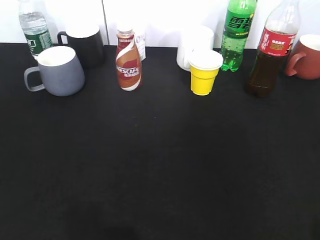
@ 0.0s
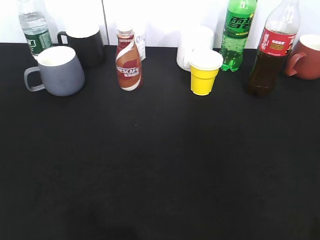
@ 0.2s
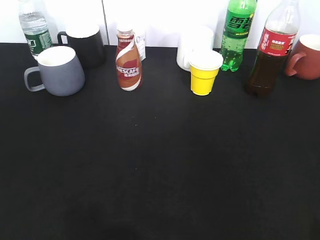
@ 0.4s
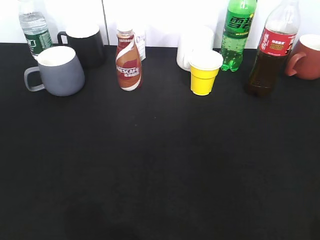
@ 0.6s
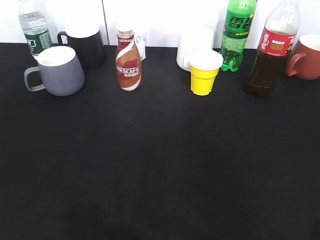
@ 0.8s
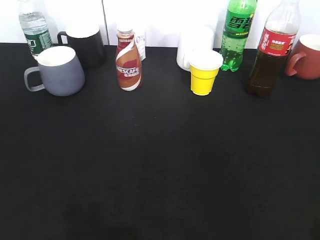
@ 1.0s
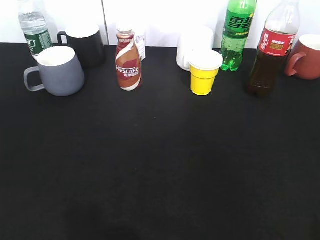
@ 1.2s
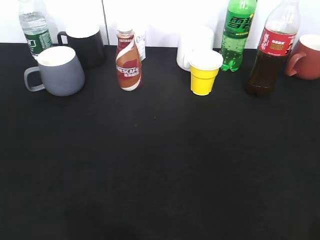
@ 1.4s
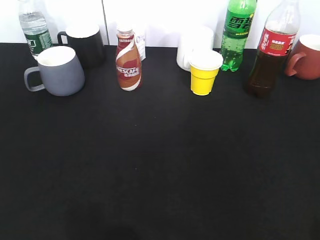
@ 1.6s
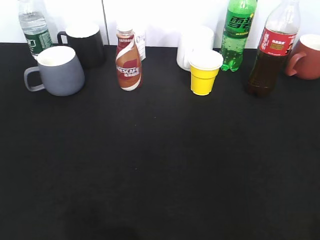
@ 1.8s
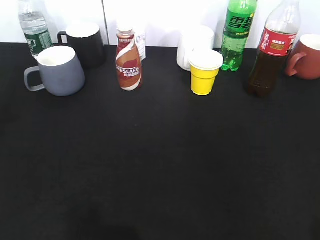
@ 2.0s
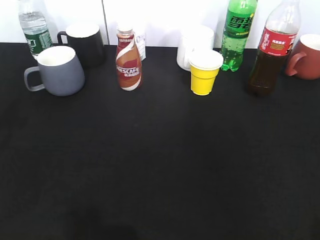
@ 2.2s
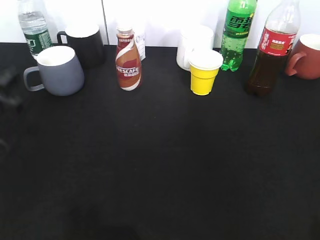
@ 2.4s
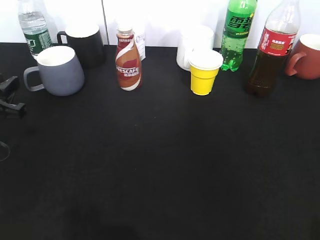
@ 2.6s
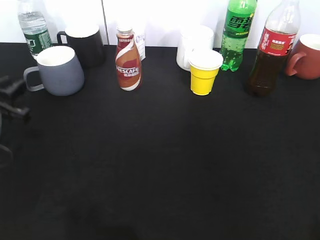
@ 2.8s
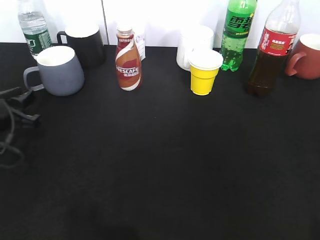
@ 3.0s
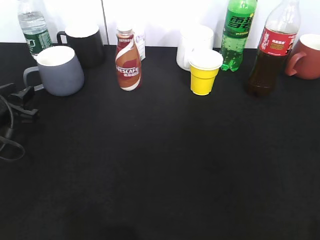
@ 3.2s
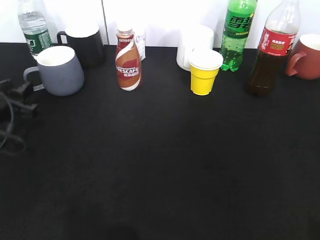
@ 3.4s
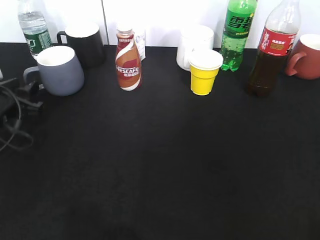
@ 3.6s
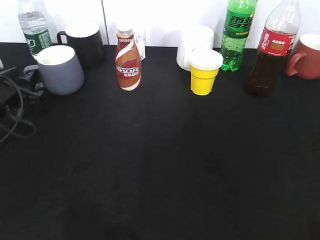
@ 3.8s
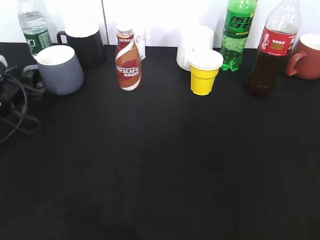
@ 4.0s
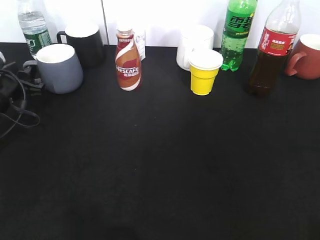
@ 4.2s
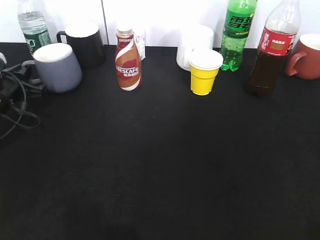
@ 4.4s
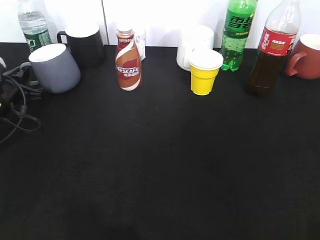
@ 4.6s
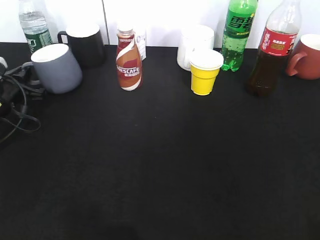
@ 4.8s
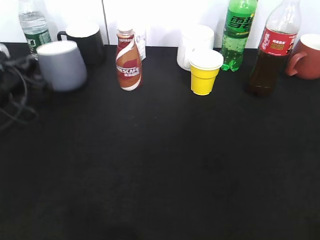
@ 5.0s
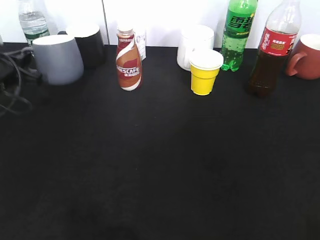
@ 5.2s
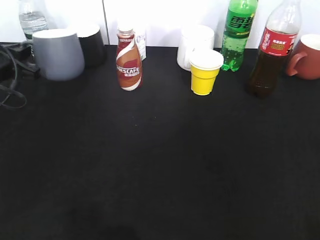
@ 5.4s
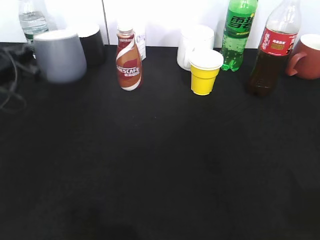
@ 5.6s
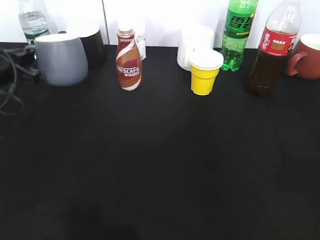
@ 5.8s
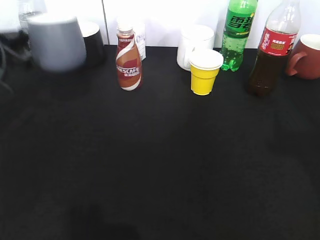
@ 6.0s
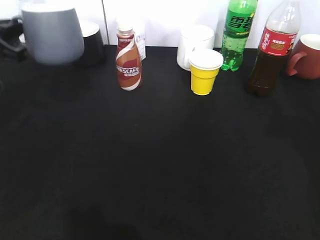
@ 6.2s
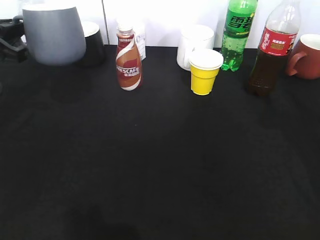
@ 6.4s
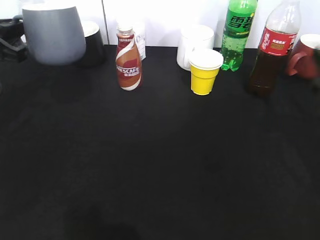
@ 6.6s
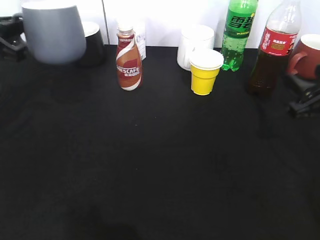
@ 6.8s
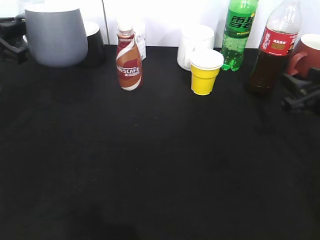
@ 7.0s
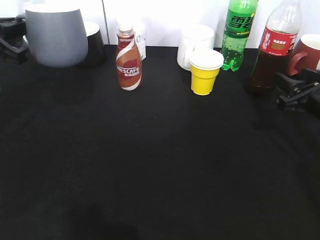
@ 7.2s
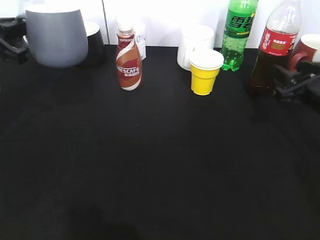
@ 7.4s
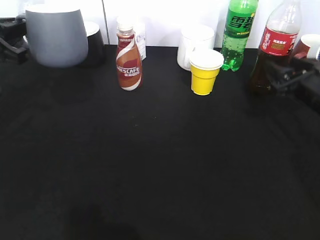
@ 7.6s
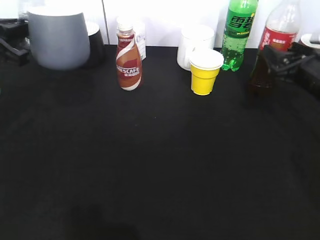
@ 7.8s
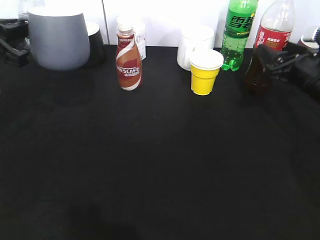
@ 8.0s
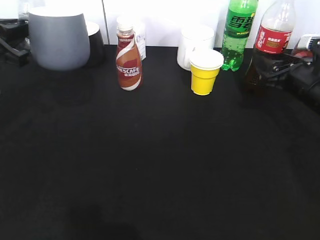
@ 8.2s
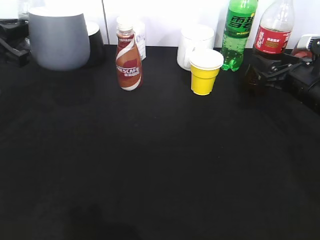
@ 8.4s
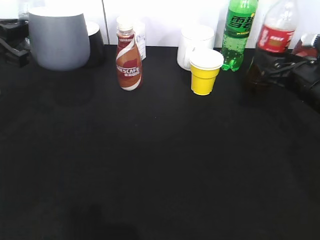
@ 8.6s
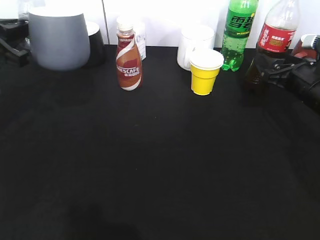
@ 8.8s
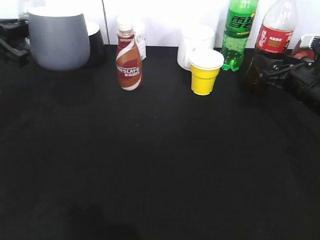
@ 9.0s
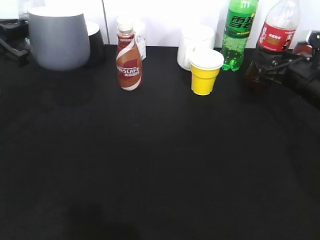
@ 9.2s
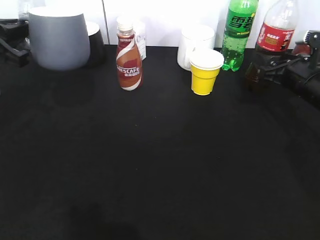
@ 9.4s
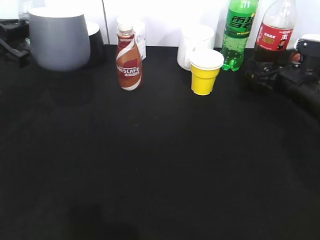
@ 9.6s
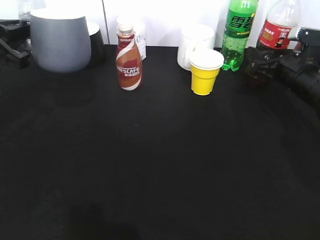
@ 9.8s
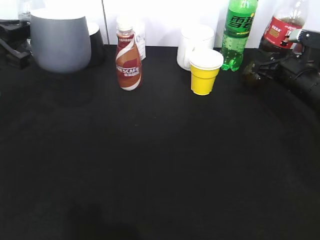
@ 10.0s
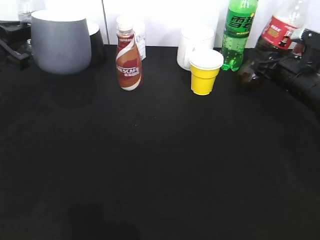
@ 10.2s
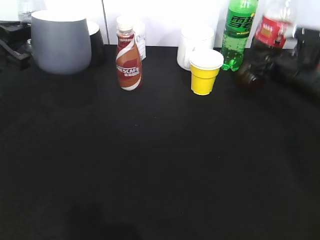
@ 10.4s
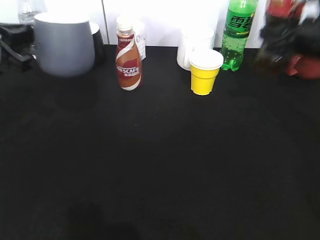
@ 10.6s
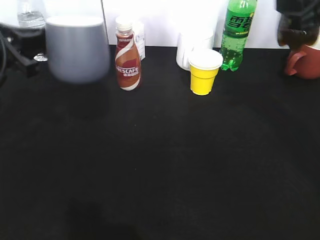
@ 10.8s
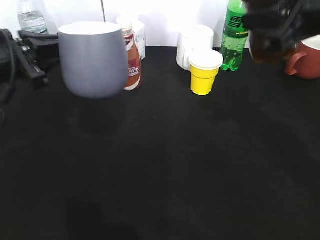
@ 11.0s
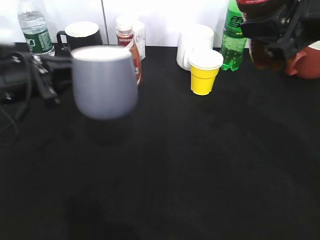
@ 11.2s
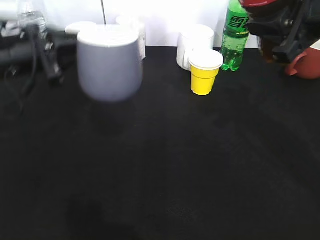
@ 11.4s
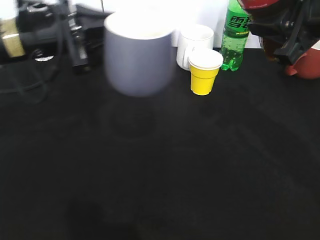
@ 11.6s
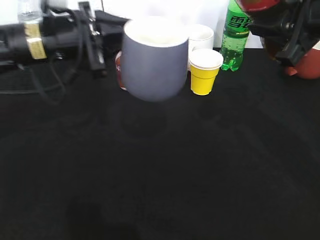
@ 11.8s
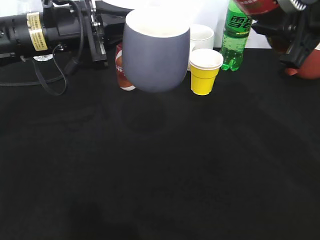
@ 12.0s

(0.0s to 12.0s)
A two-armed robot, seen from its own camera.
Step, 1.0s - 4.2s: Grasp the grey cup with left gripper.
Step, 4.4s - 5.8s: Lift the grey cup with left gripper.
Step, 6.0s - 8.8s: Grasp the bottle with cola with right gripper.
1.6s - 3.0s: The left gripper heads forward and downward, covering about 35 cm, and closes its fingers.
3.0s - 4.4s: The left gripper heads forward, covering approximately 5 cm, and closes.
4.4s - 6.0s: The right gripper moves forward, some 15 cm, while the left gripper shifts approximately 10 cm upward.
6.0s - 7.6s: The right gripper moves downward and forward, roughly 25 cm.
7.6s - 9.0s: The grippers make only small movements.
9.0s - 10.4s: The right gripper closes up.
10.4s - 12.0s: The left gripper is displaced to the right by some 15 cm; the right gripper goes some 20 cm upward and backward.

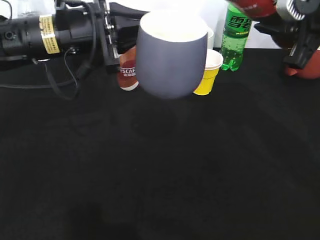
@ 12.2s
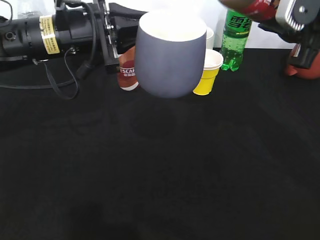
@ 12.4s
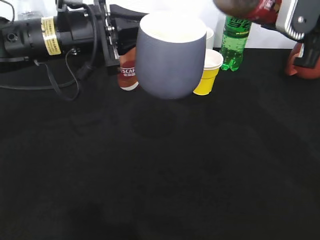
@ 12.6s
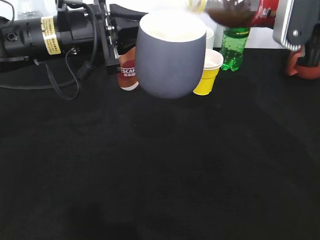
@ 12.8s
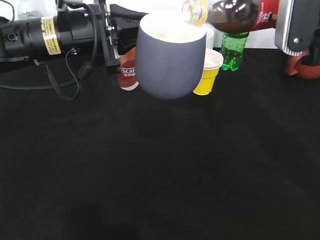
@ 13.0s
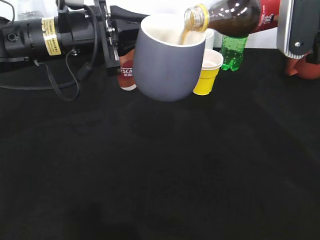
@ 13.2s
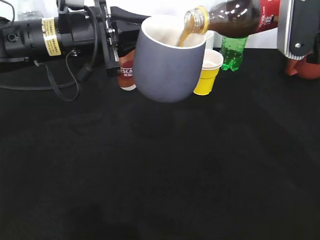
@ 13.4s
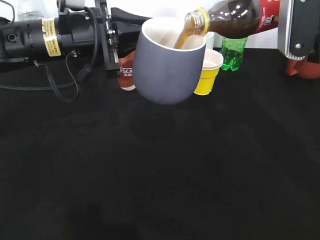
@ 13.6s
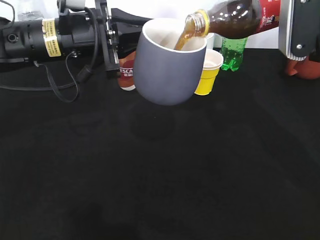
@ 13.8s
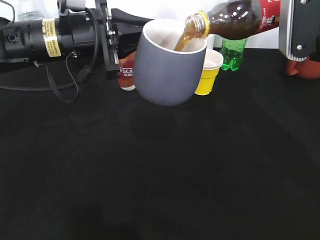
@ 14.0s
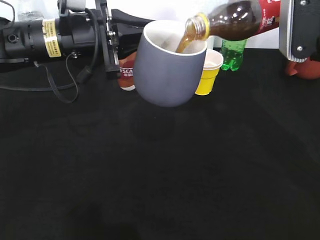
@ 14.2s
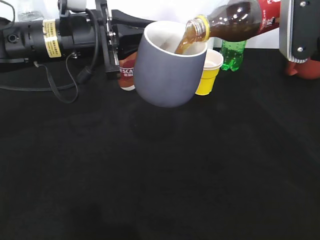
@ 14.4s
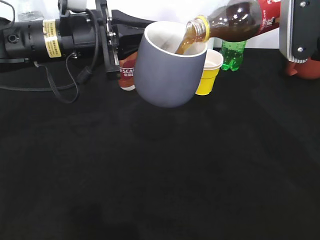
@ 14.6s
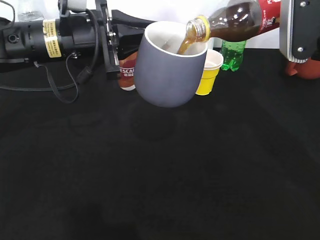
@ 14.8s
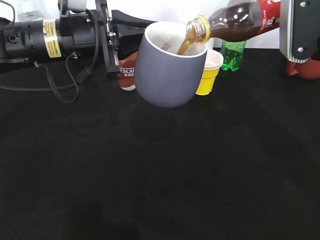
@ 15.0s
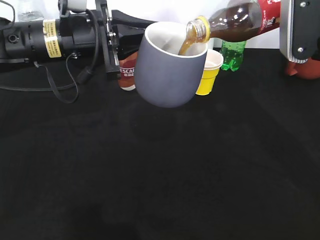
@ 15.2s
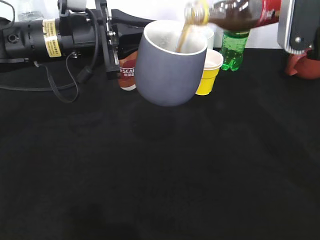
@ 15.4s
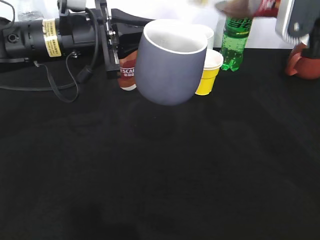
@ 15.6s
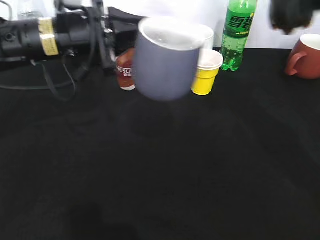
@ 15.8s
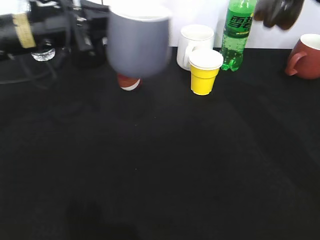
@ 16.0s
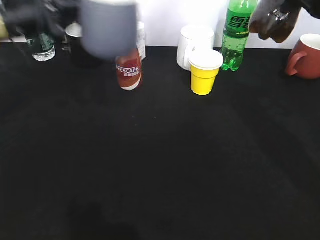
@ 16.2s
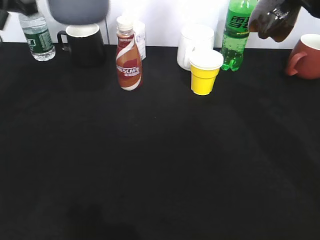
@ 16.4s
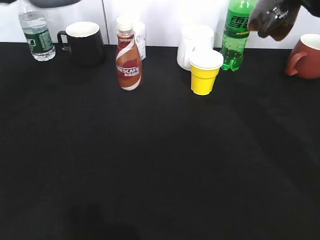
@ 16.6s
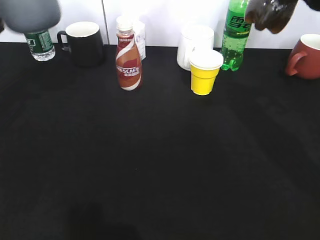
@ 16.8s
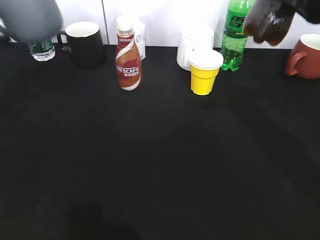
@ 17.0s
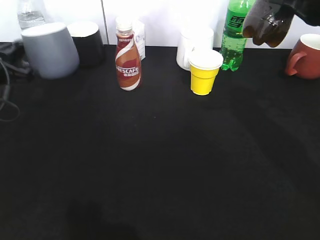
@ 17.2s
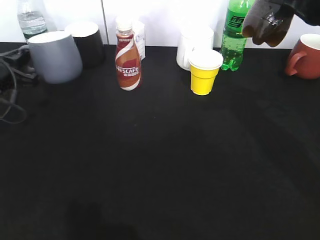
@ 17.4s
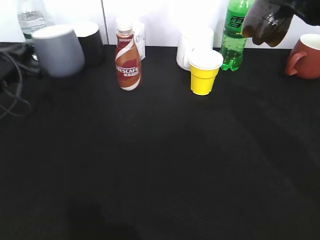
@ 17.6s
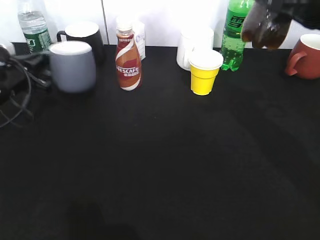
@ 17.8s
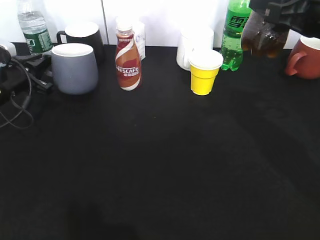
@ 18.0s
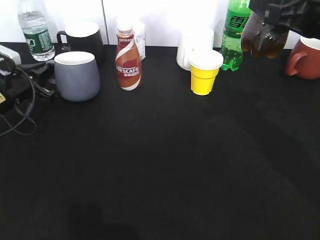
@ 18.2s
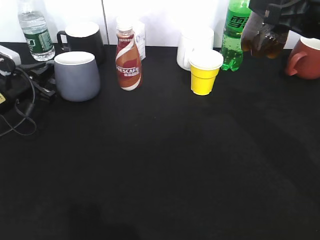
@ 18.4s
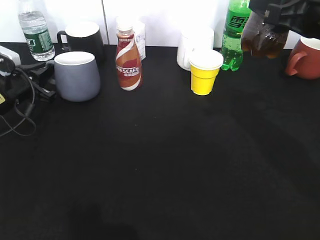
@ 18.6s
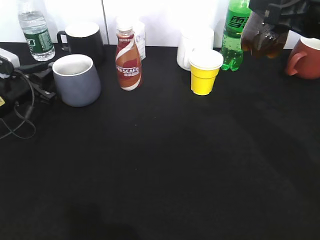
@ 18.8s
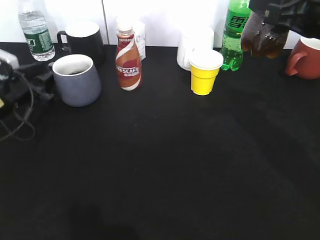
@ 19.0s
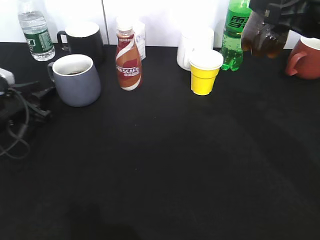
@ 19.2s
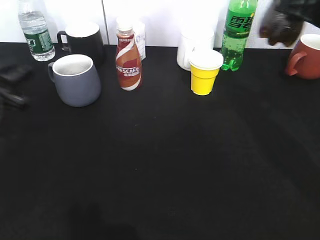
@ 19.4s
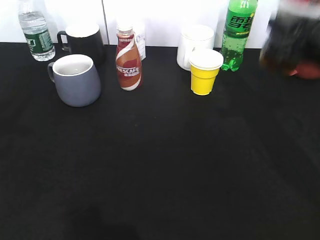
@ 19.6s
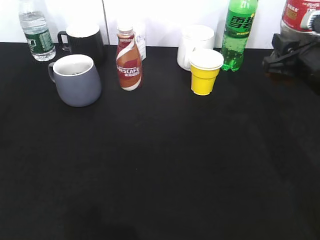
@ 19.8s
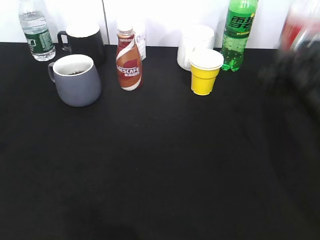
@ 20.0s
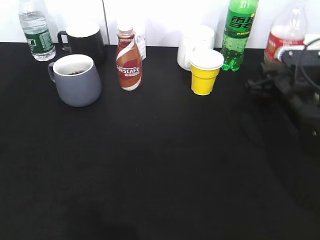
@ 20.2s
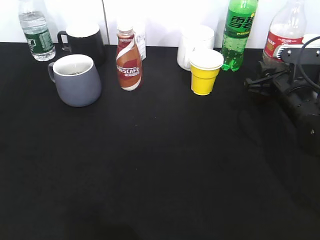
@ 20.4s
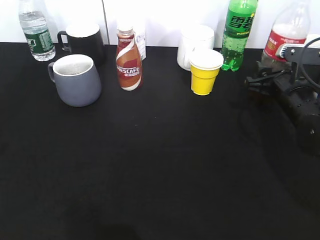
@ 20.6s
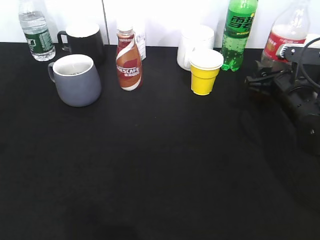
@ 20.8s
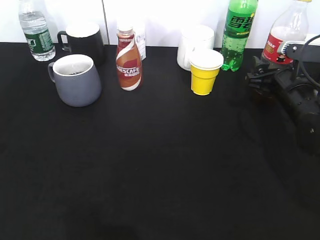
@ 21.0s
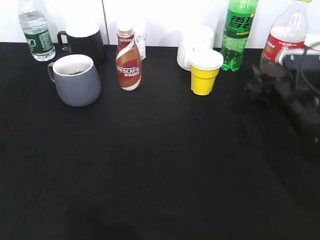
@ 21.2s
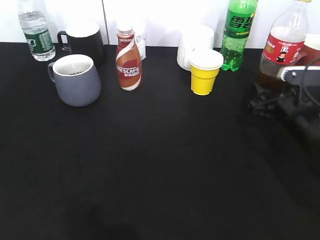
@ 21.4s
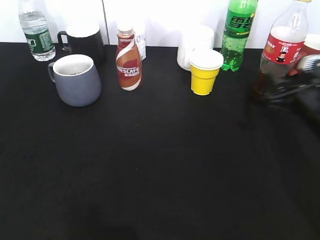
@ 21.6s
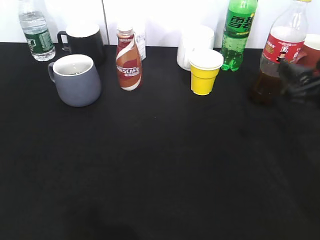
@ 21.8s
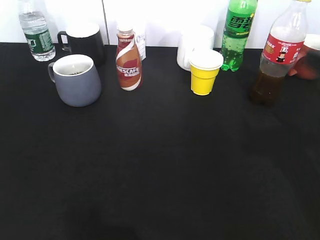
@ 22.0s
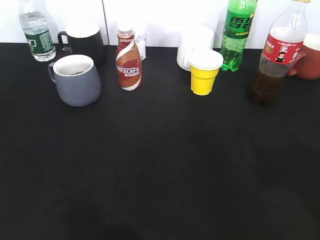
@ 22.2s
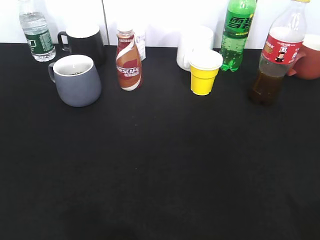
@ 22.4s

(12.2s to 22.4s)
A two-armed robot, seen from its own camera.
Step, 12.2s - 15.2s: Pour the cola from bottle to cup with right gripper.
Step, 15.4s - 19.0s: Place the grey cup on the table with left gripper.
Step, 19.4s - 21.6s: Place the cola bottle on the table with right gripper.
13.6s - 15.2s: Neither gripper changes place.
15.2s - 16.6s: The left gripper heads to the left, covering about 15 cm.
16.6s - 18.0s: The left gripper moves downward, some 15 cm.
18.0s - 19.4s: The left gripper moves backward, some 10 cm, and opens its fingers.
19.4s - 21.0s: The left gripper is displaced upward and backward by about 20 cm, while the right gripper shifts roughly 15 cm downward, and opens.
21.0s - 22.4s: The right gripper shifts roughly 35 cm backward and upward; the left gripper goes about 15 cm backward.
